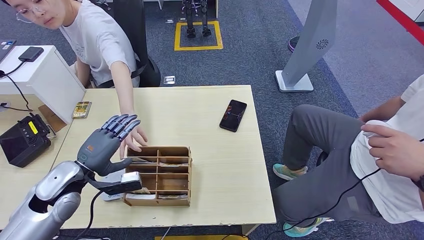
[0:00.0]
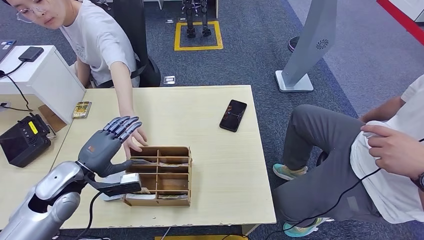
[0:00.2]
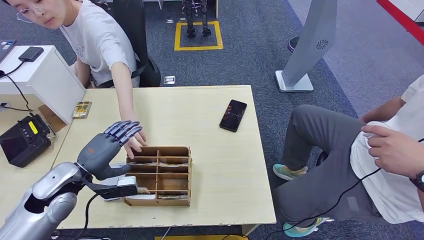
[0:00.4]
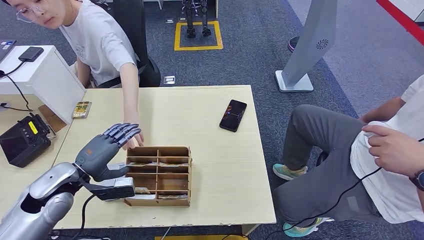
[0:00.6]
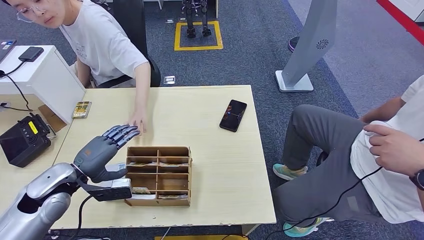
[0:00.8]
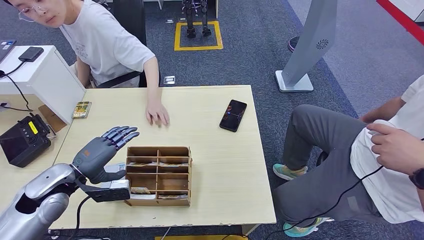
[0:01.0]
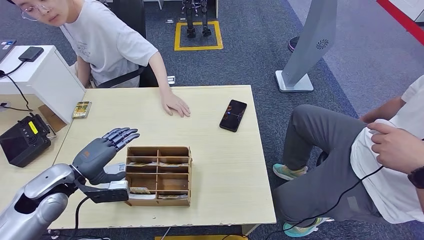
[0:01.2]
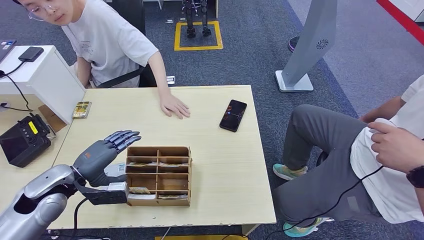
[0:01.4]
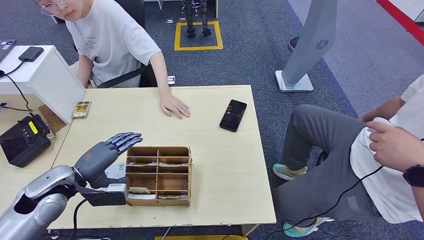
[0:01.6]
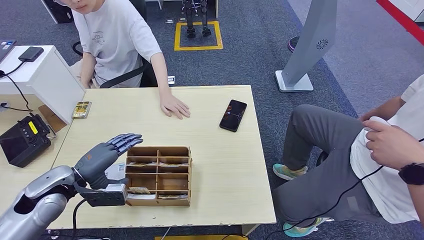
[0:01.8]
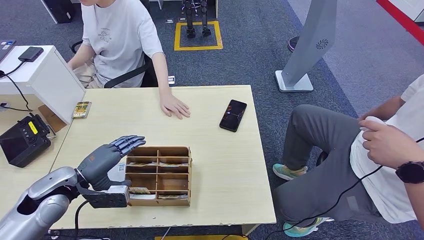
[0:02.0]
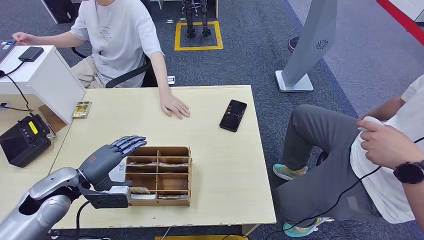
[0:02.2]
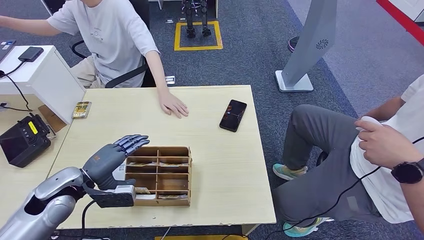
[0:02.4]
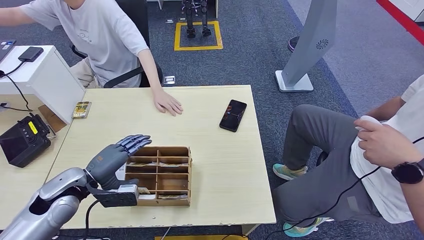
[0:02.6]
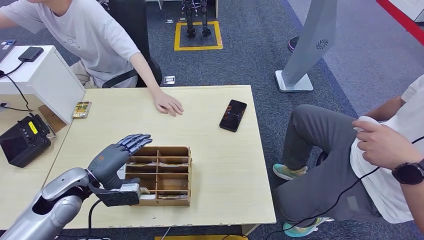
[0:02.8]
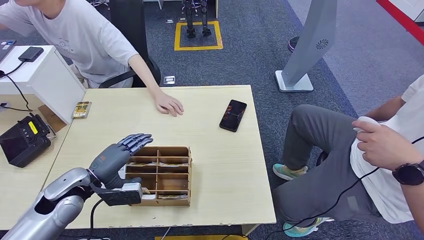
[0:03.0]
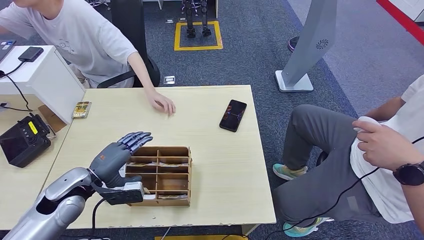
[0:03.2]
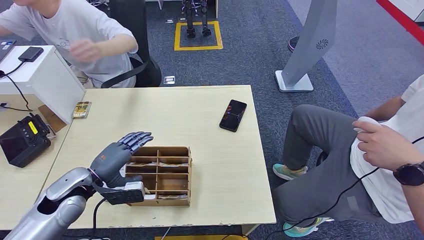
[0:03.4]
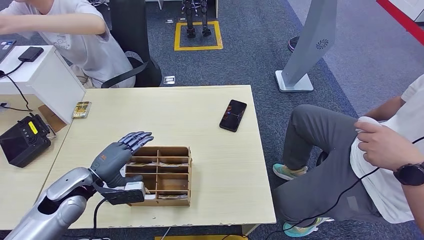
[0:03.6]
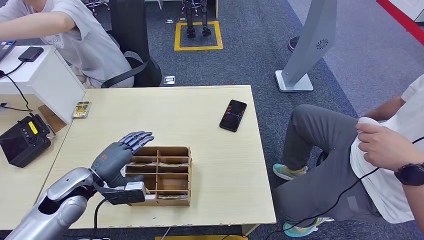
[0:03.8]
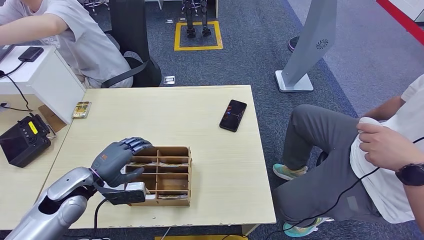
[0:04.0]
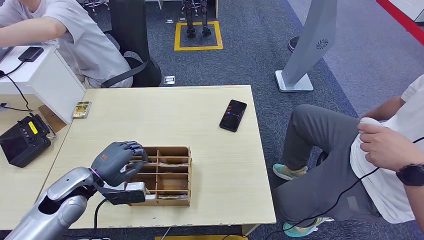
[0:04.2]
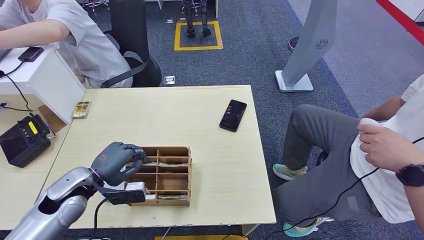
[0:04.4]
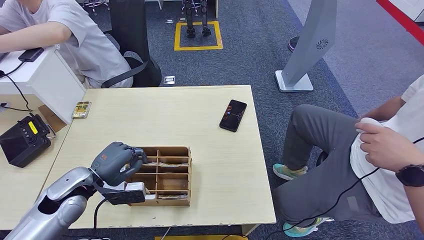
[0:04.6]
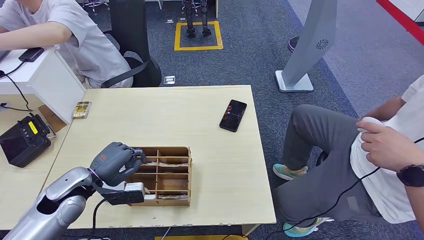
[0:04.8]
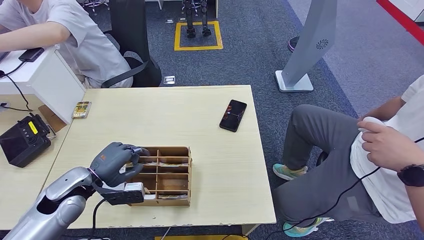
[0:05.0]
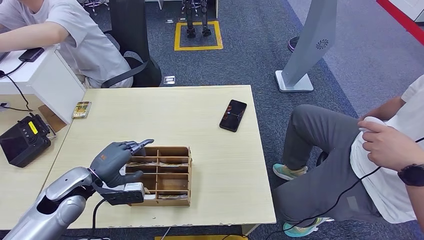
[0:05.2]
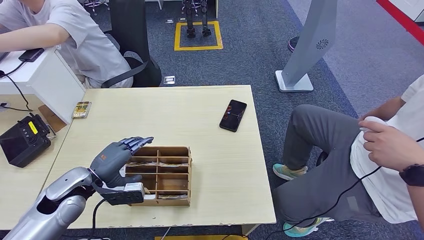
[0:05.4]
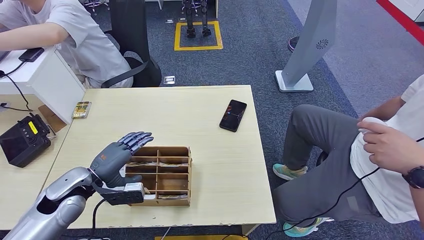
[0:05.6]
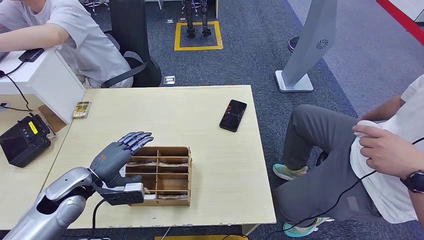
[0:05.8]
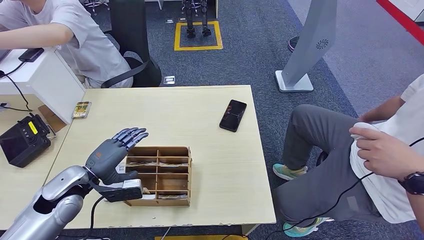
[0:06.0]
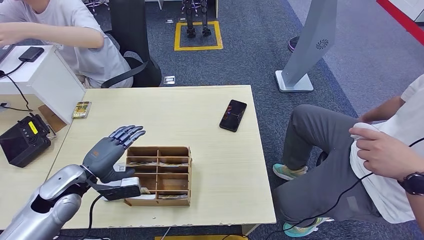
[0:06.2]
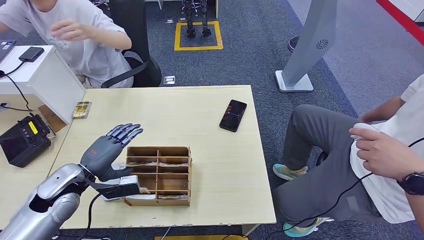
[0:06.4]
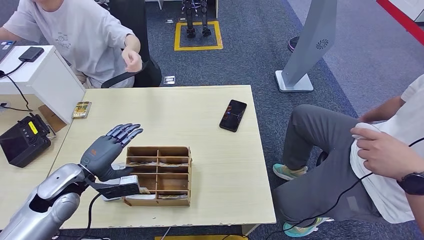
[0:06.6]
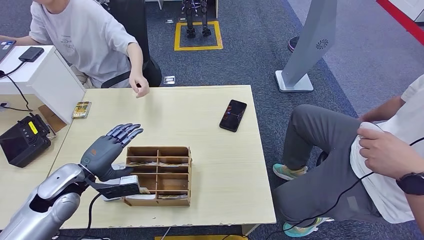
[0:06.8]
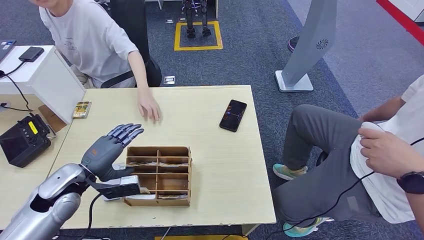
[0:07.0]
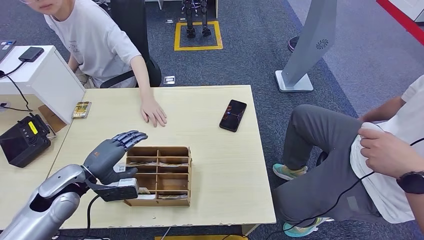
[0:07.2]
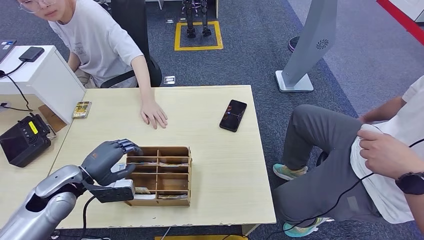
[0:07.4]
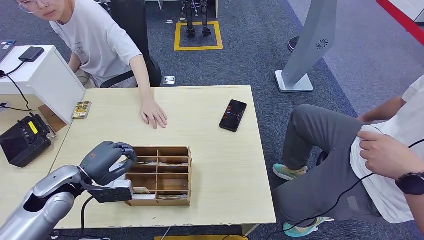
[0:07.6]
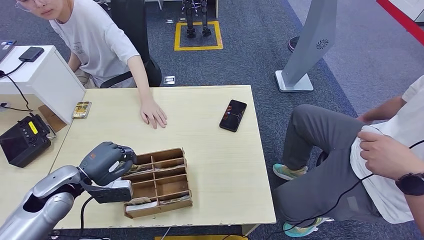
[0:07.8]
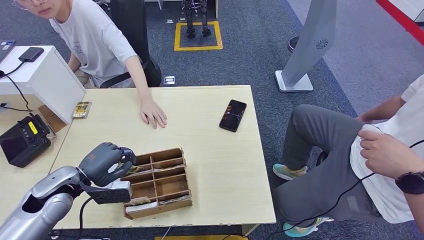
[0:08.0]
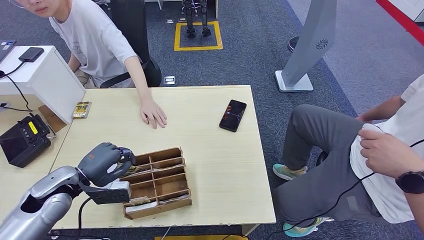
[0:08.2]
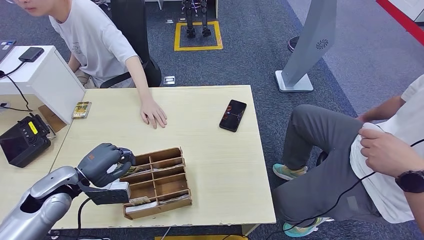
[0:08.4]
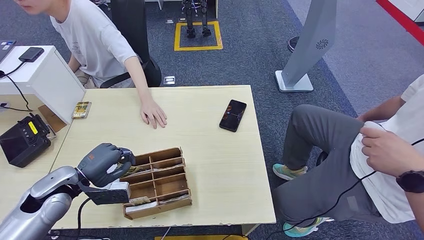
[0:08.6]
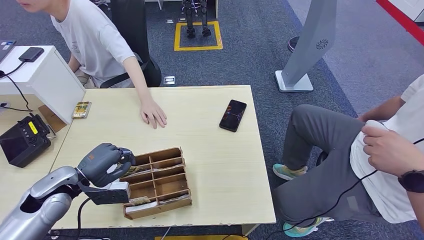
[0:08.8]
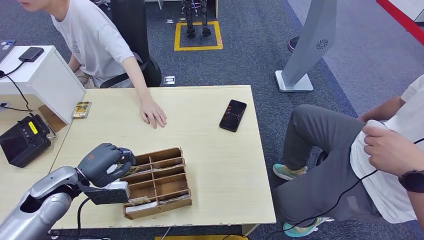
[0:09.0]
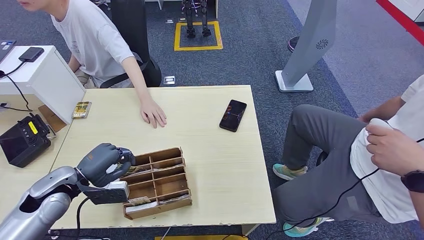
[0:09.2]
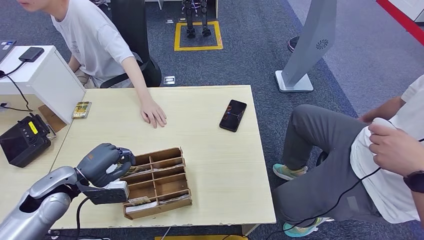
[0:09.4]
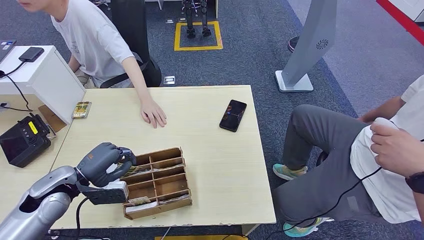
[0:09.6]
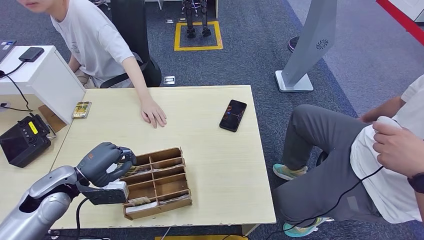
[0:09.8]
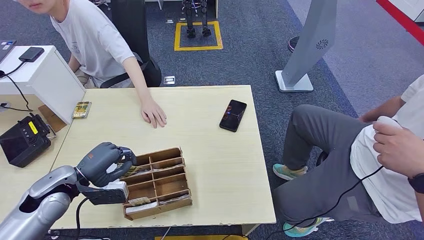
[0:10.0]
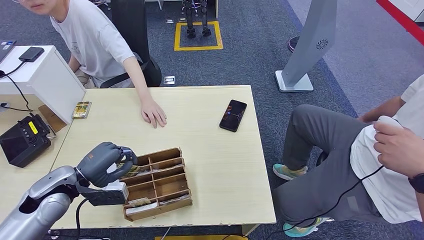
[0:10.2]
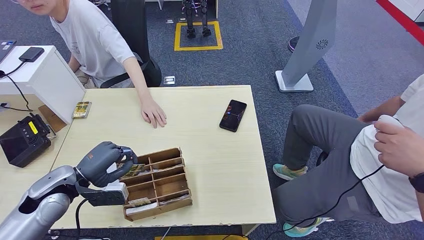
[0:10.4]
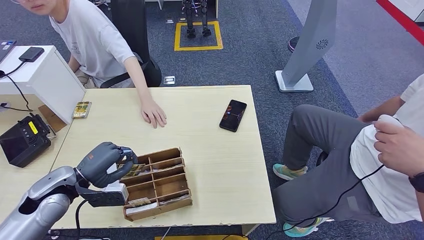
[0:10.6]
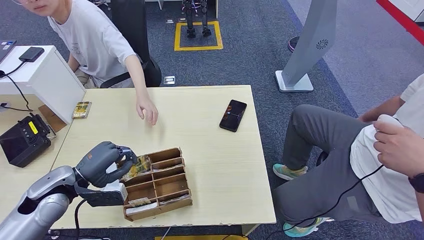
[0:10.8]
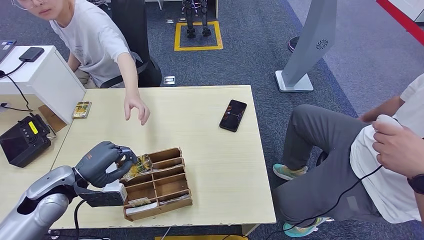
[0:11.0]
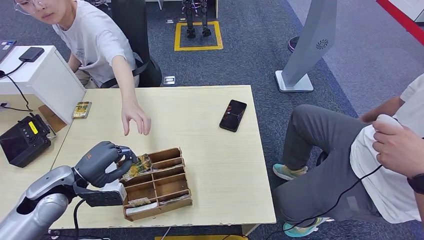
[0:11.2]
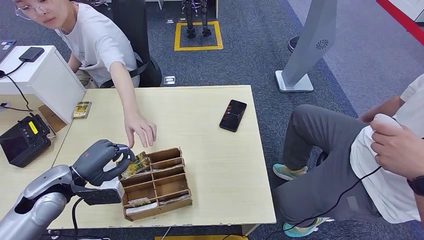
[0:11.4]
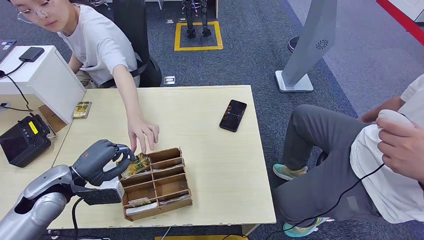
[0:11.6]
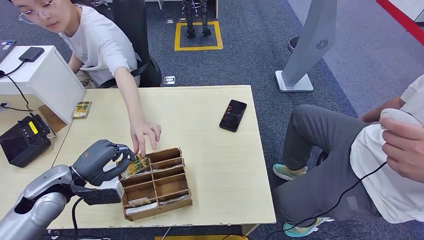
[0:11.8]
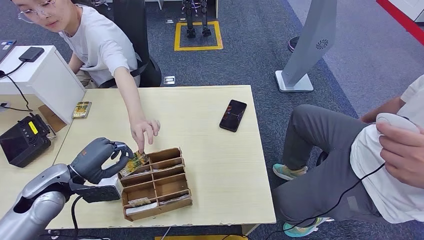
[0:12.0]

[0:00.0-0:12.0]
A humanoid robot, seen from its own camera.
Step, 0:00.0 to 0:11.4: Pick up the room key from the key card box.
0:00.0 to 0:01.6: The hands stay close to where they were, moving slightly.
0:01.6 to 0:03.0: The hands move only a little.
0:03.0 to 0:04.4: The two hands keep their place.
0:04.4 to 0:06.0: Both hands stay about where they are.
0:06.0 to 0:07.6: The hands make only small movements.
0:07.6 to 0:09.0: The two hands keep their place.
0:09.0 to 0:10.4: The hands stay close to where they were, moving slightly.
0:10.4 to 0:12.0: Both hands stay put.

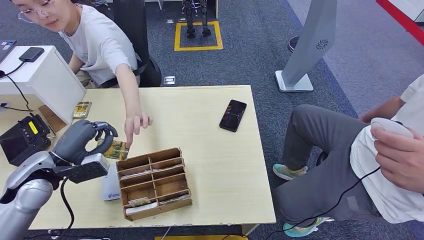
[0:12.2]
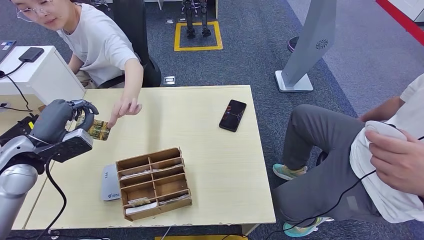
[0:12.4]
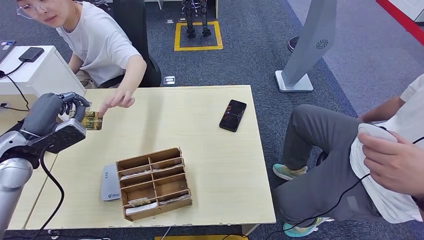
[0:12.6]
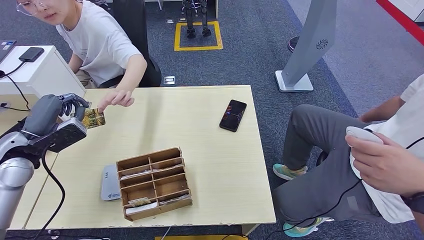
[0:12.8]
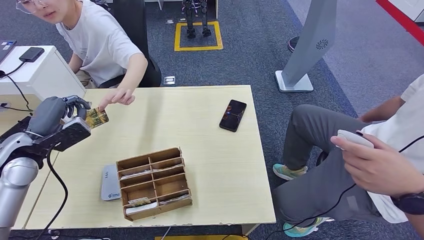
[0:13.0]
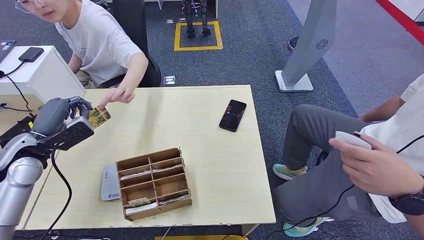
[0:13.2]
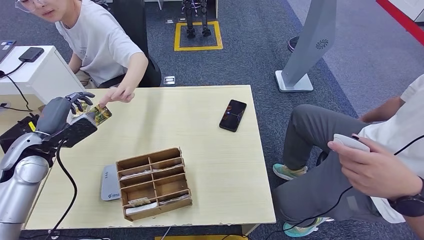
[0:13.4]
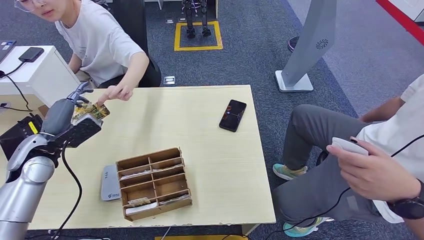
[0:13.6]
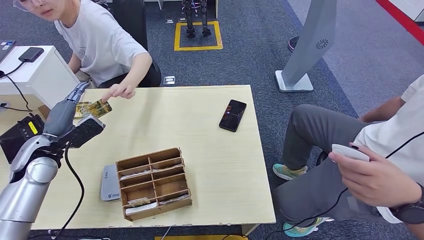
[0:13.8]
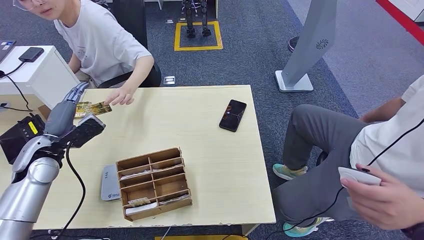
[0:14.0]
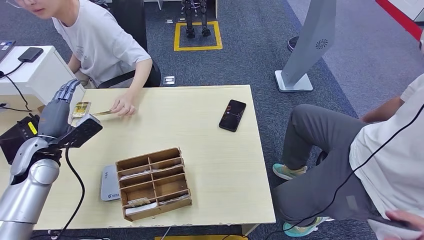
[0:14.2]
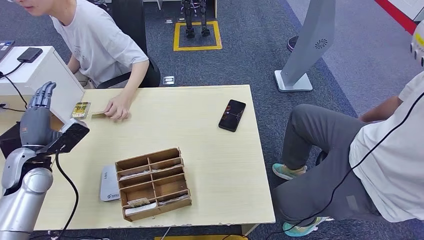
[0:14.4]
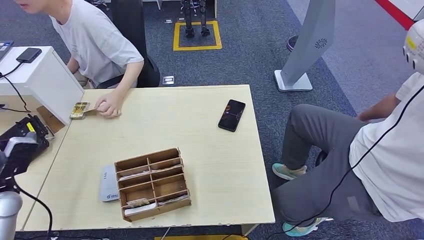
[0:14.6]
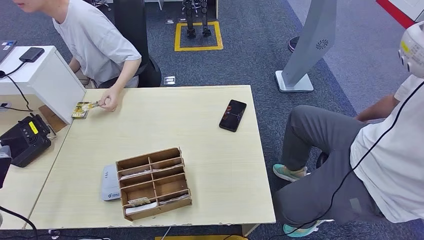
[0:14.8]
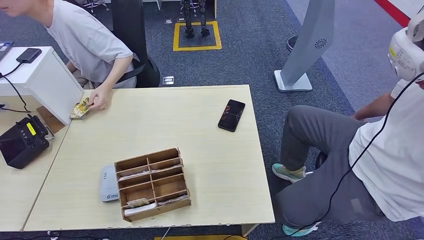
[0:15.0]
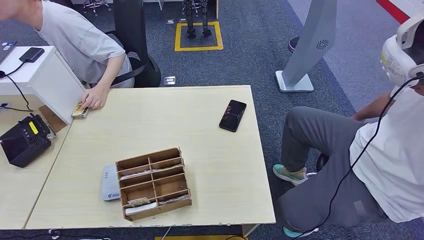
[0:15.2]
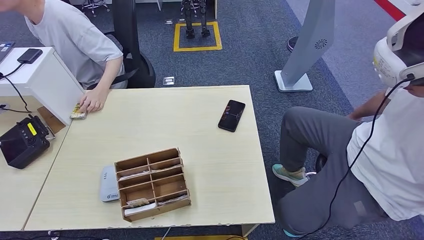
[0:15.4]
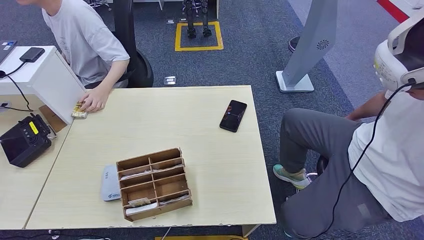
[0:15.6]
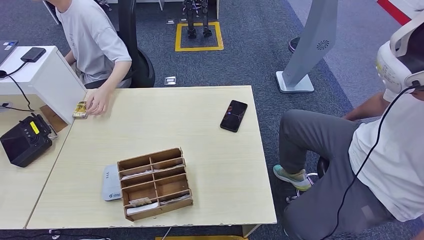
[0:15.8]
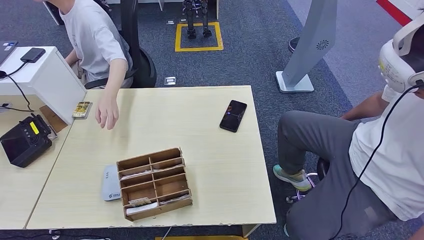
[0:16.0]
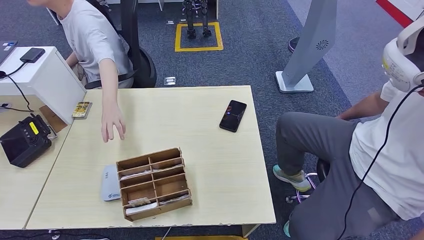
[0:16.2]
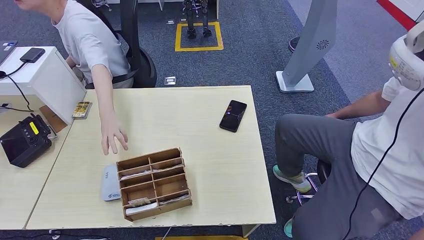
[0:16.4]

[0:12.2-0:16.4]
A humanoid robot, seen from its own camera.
Step, 0:12.2 to 0:16.4: Hand the room key to the person.
0:12.2 to 0:13.6: The left hand ends up about 5 cm from where it was.
0:15.0 to 0:16.4: The left hand moves downward, to the right and backward, some 40 cm.
